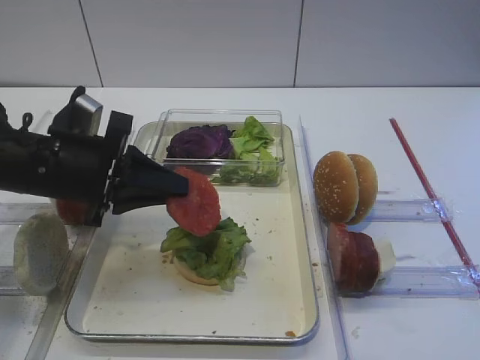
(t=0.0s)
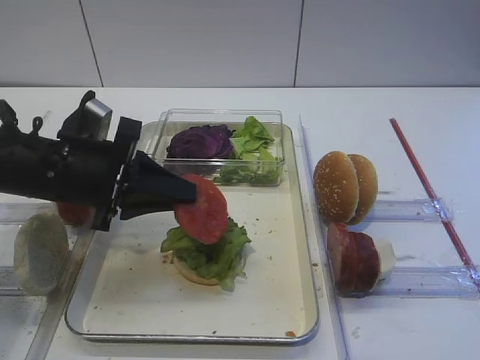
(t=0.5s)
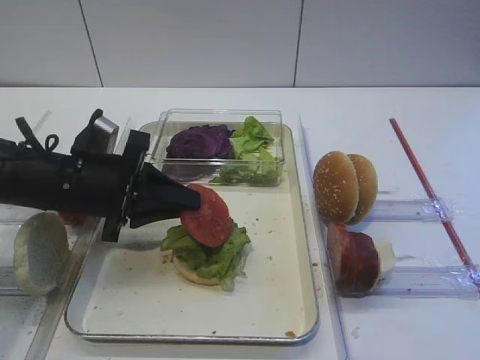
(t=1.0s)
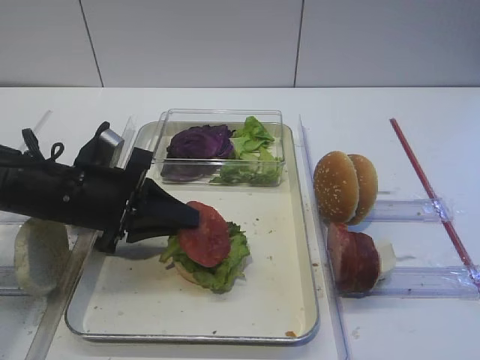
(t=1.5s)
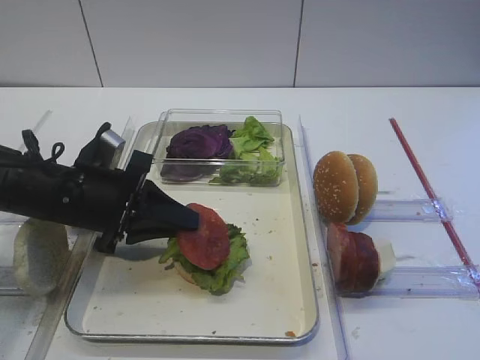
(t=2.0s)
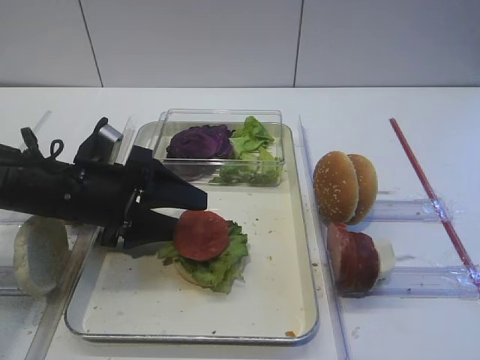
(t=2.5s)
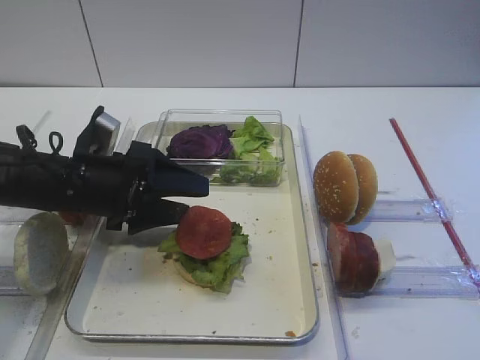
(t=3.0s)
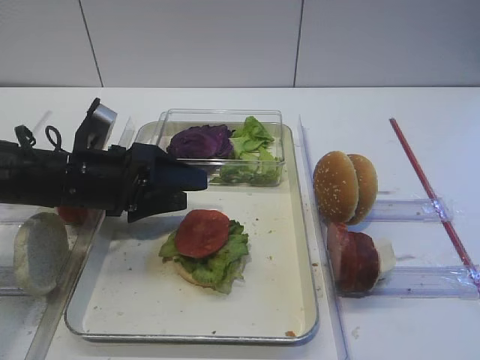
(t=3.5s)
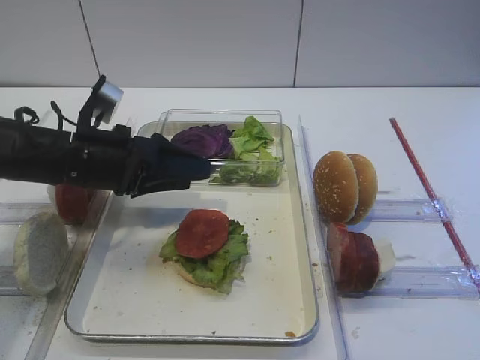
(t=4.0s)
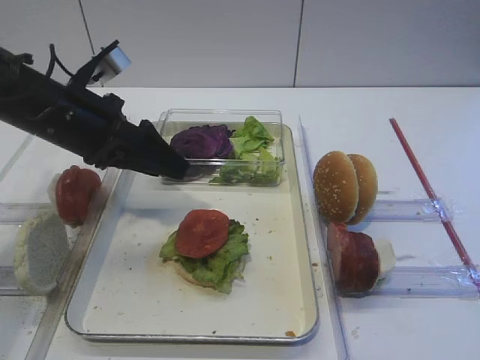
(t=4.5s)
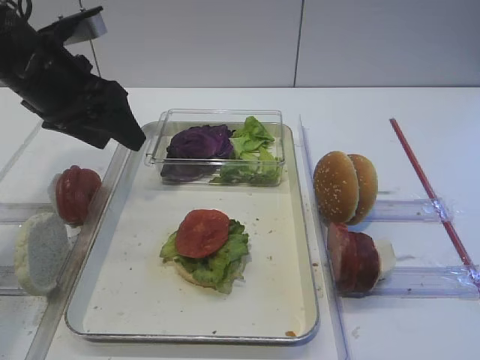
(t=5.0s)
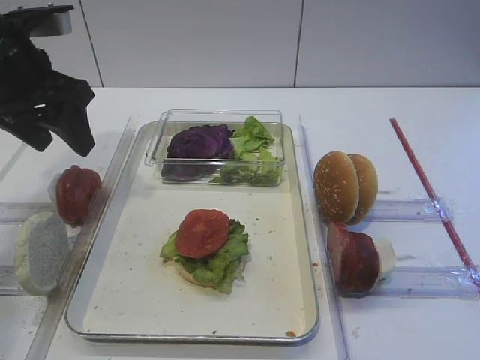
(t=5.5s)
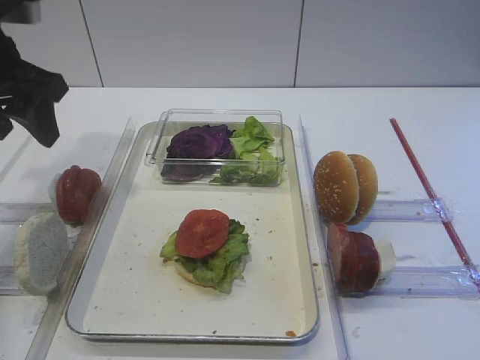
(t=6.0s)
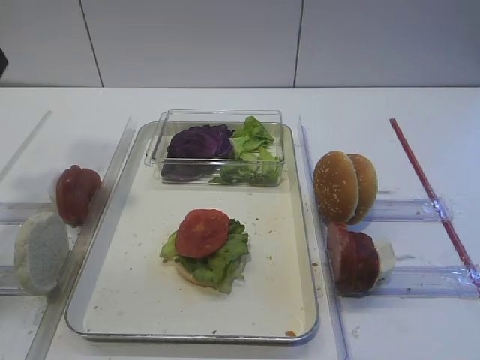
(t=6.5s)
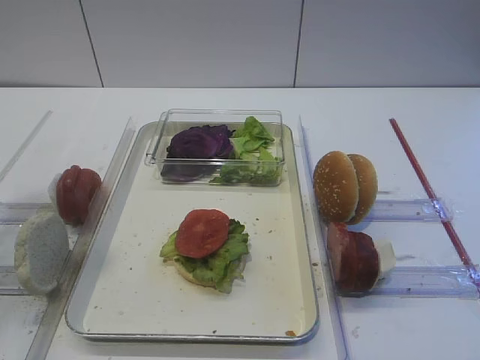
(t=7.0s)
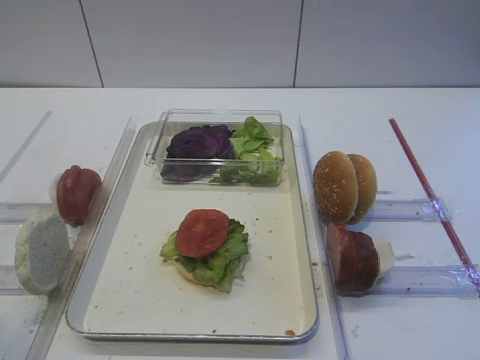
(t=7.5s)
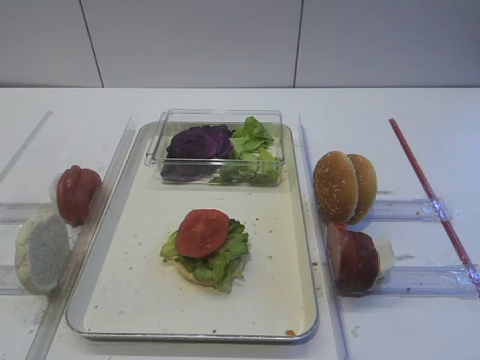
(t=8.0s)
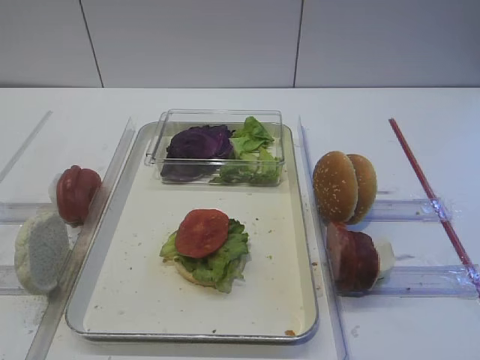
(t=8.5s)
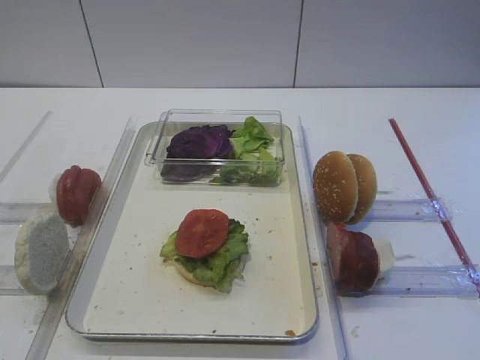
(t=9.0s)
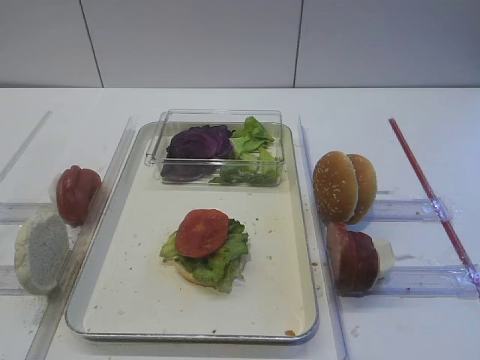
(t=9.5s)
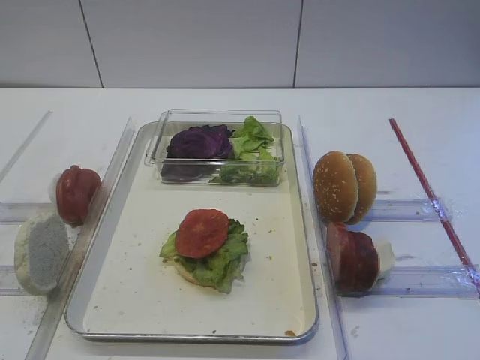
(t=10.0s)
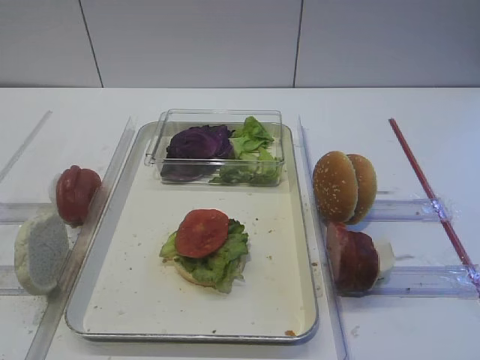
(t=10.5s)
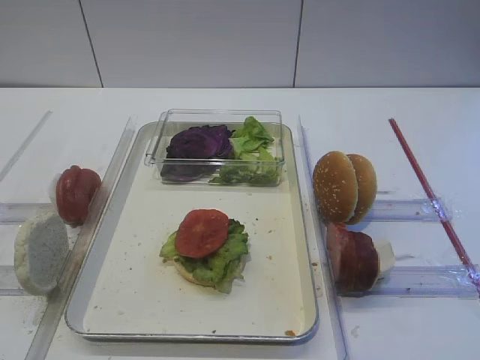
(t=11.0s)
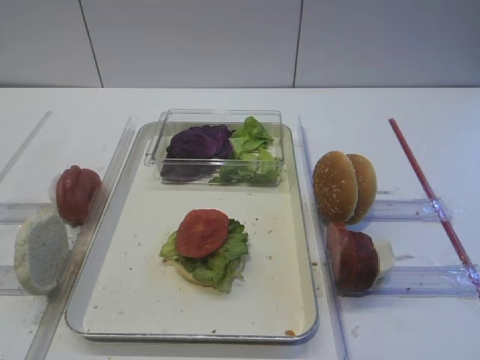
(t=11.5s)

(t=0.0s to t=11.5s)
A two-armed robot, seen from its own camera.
Step, t=0.0s - t=3.5s: Place the tomato slice on the lettuce leaf with the left gripper.
t=0.0s - t=2.0s: The grippers make only small movements.
t=2.0s - t=4.0s: The left gripper opens.
t=4.0s - t=6.0s: The left gripper heads upward and to the left, covering about 15 cm.
t=6.0s - t=7.5s: The left gripper is displaced backward by approximately 30 cm.

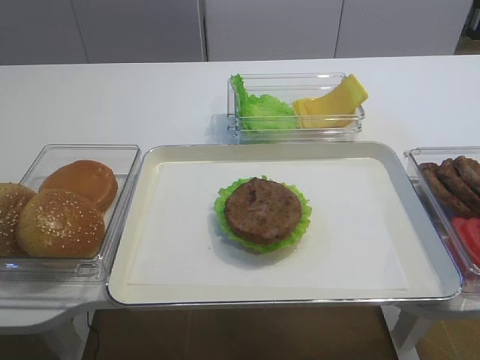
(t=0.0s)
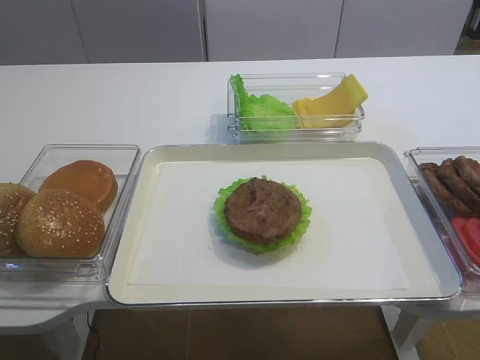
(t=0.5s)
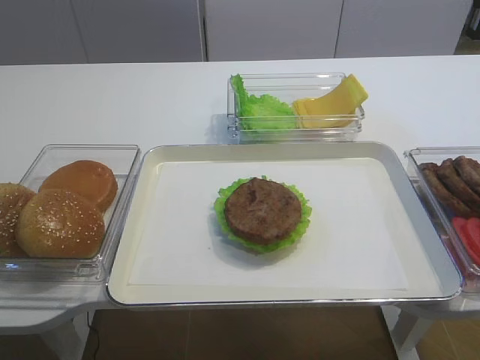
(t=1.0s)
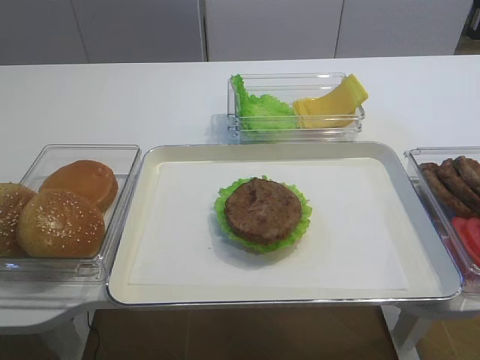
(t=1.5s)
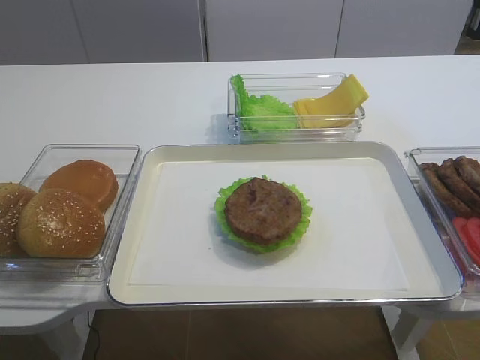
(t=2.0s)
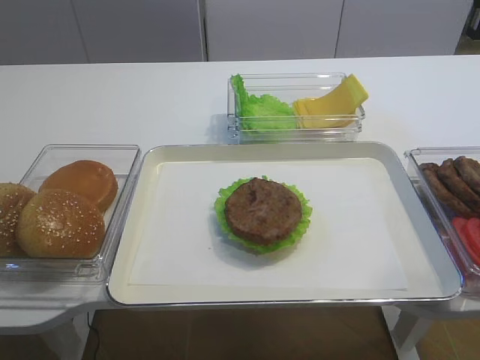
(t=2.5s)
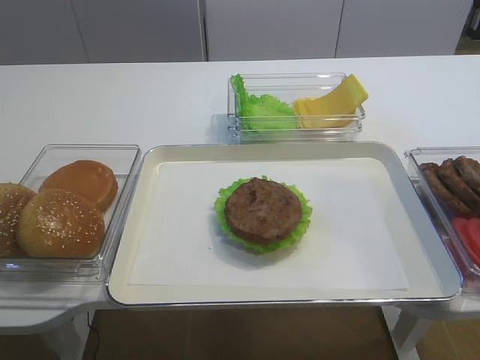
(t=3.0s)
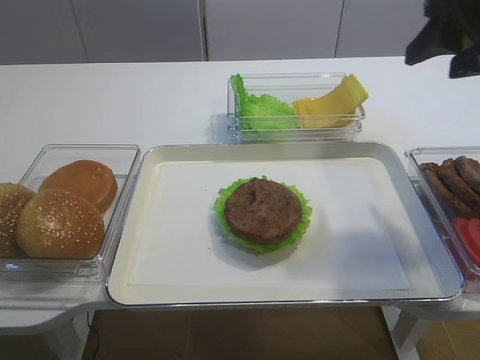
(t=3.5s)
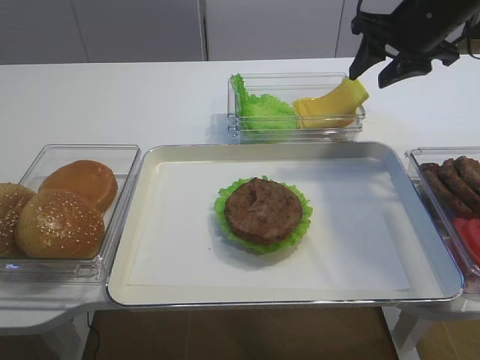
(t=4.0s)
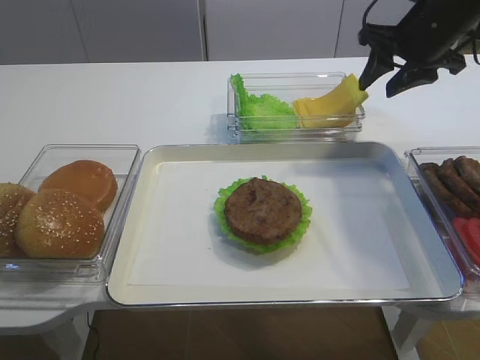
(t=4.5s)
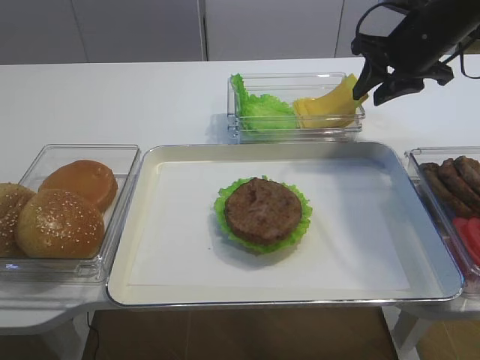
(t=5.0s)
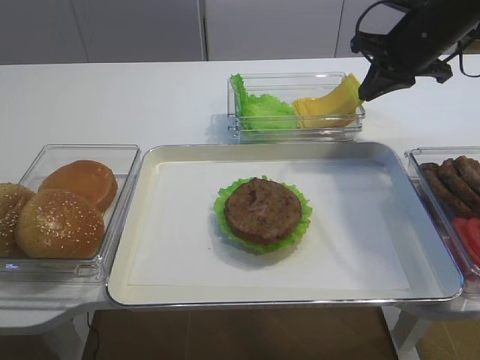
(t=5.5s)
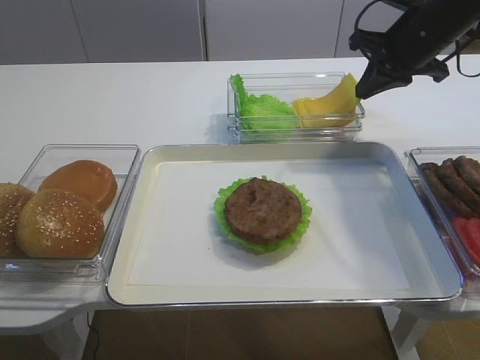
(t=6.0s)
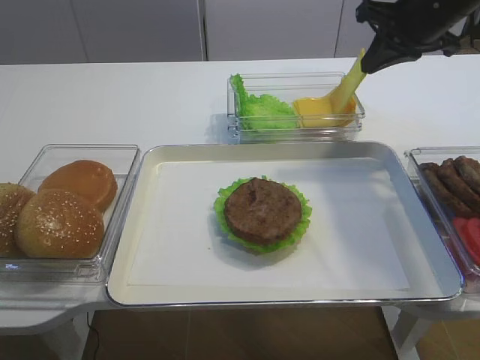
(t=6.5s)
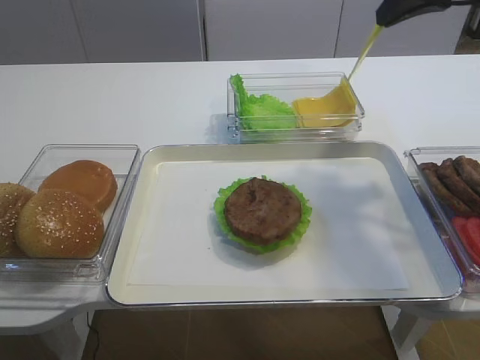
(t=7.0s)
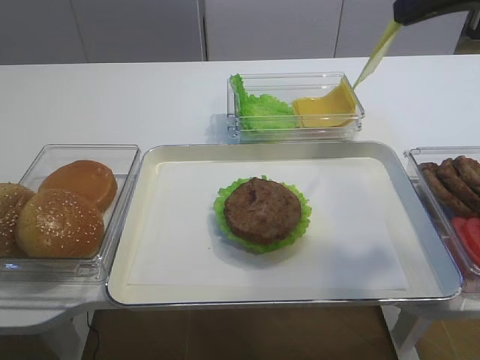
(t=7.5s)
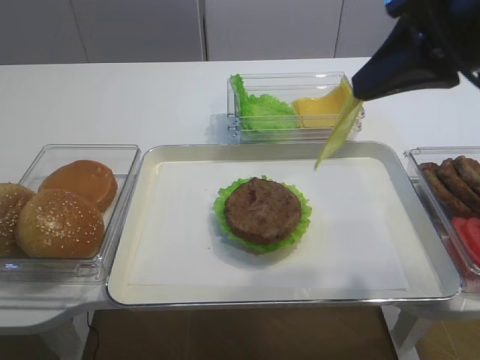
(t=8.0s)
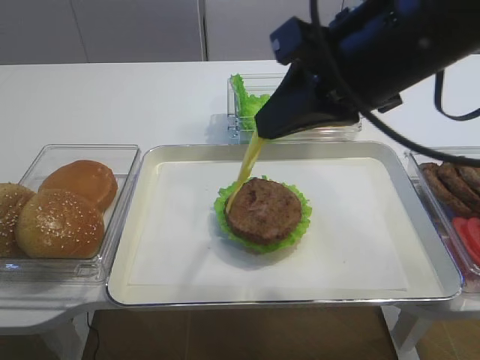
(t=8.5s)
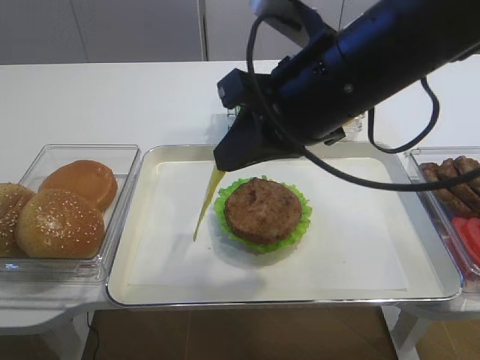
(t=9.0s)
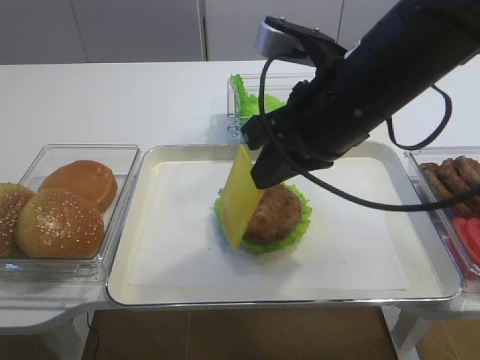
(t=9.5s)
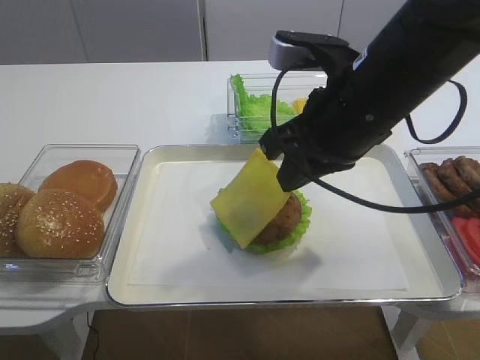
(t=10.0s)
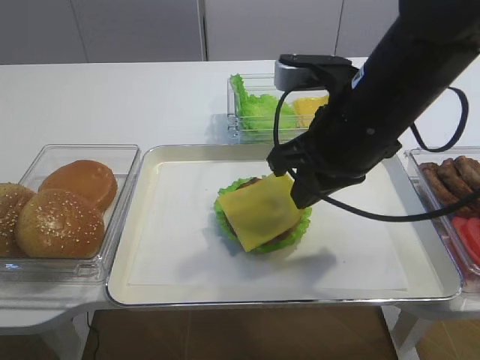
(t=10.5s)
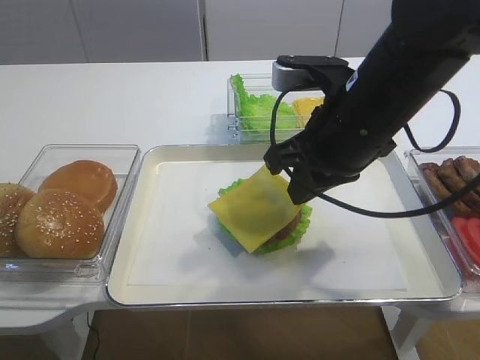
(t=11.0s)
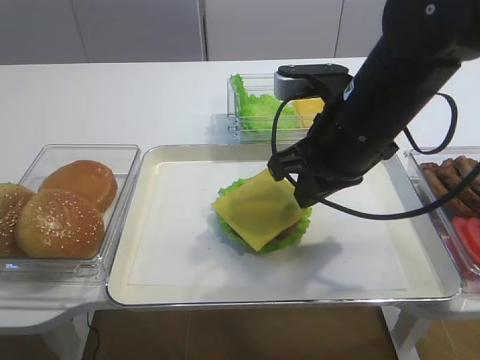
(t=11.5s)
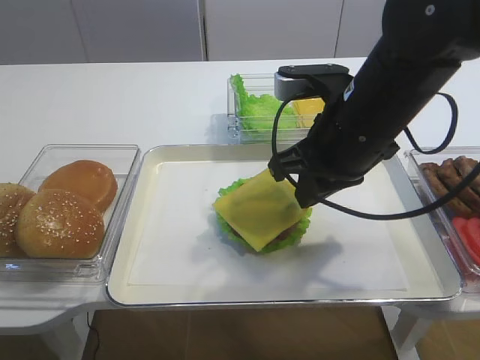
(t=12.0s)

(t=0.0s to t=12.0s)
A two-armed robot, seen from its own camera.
Step, t=0.0s - t=6.5s: Pick up the cheese slice with the right gripper.
t=2.0s - t=4.0s: The right gripper moves forward, some 40 cm.
t=4.0s - t=6.0s: The right gripper closes up.
t=6.0s - t=8.0s: The right gripper moves backward and upward, about 20 cm.
t=8.0s - t=10.0s: The right gripper travels to the left and downward by some 10 cm.
t=10.0s - t=12.0s: The grippers stay close to where they were, moving slightly.

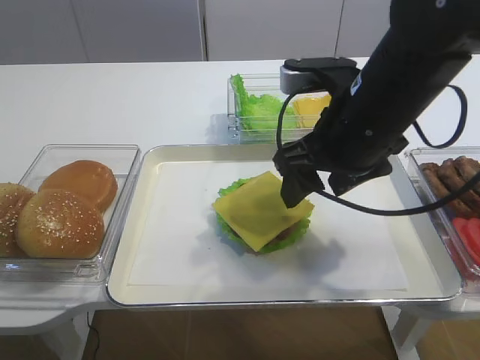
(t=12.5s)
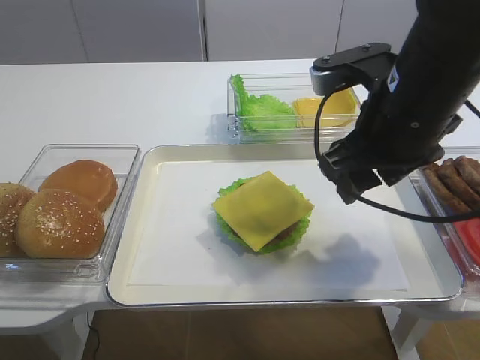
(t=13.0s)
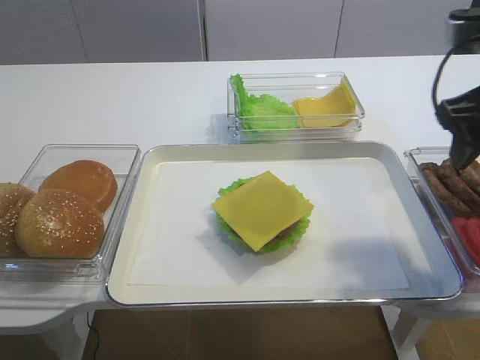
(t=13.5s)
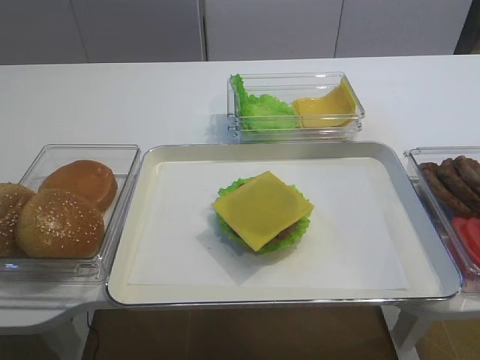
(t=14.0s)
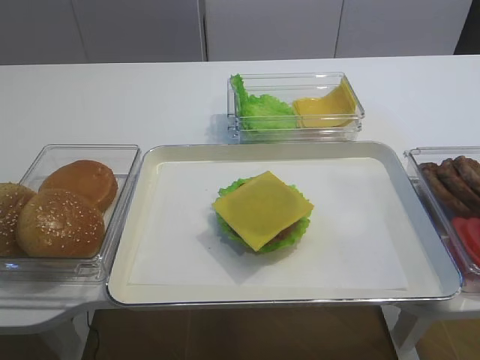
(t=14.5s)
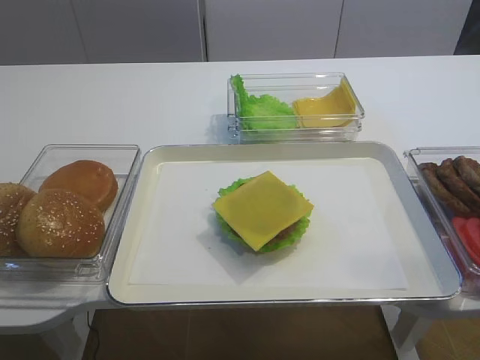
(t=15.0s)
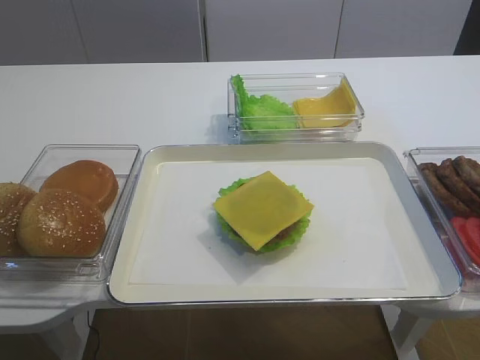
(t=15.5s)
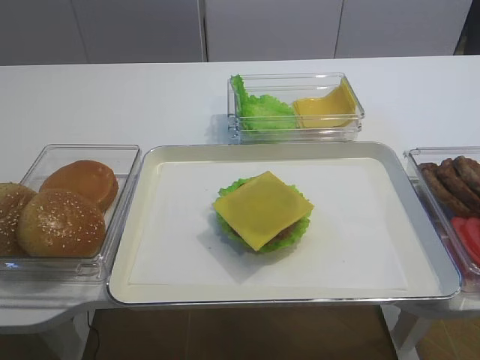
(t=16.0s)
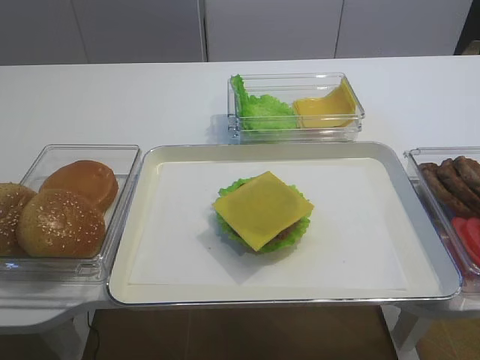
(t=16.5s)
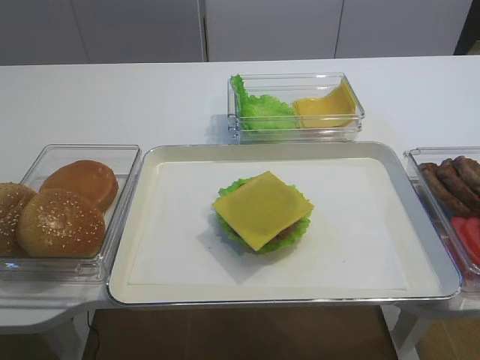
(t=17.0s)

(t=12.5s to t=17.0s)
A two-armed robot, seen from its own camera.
t=12.5s - t=14.5s: The right gripper is displaced backward, to the right and upward by about 25 cm.
